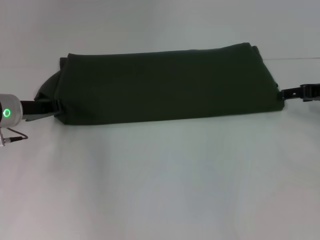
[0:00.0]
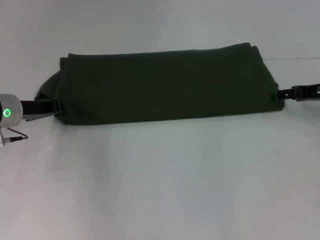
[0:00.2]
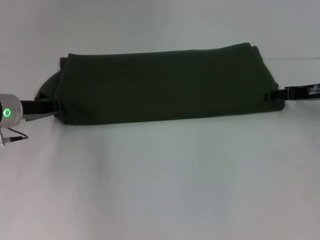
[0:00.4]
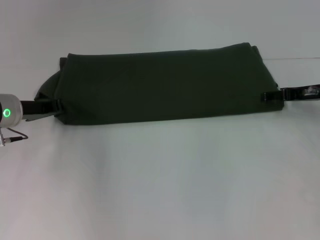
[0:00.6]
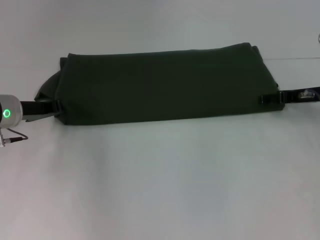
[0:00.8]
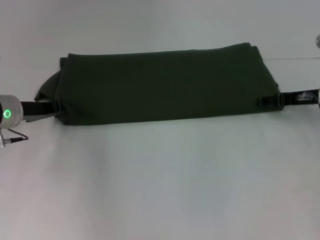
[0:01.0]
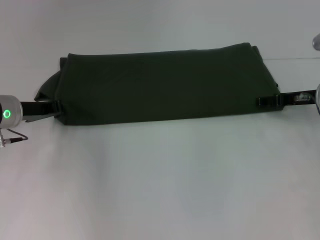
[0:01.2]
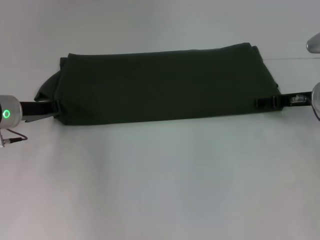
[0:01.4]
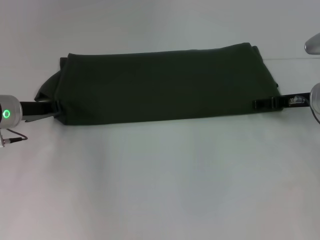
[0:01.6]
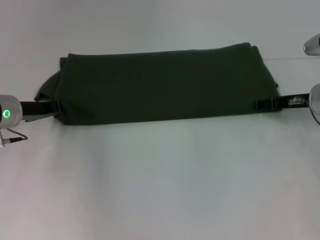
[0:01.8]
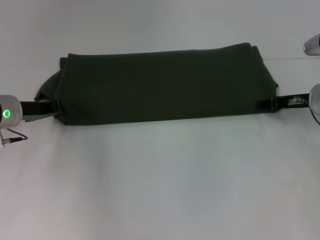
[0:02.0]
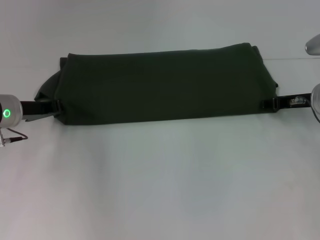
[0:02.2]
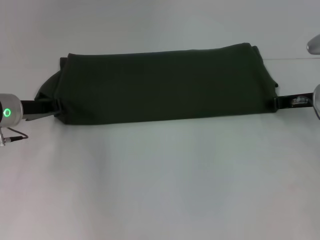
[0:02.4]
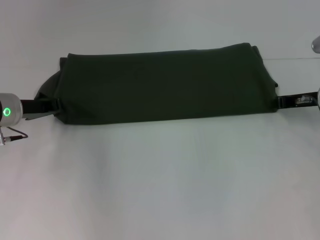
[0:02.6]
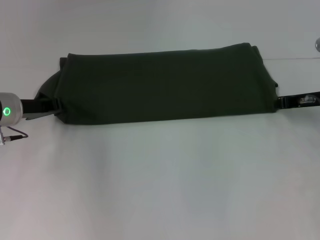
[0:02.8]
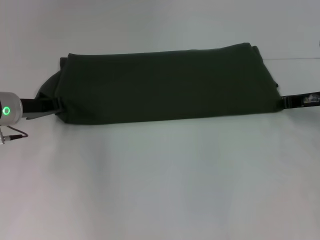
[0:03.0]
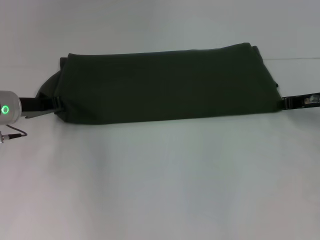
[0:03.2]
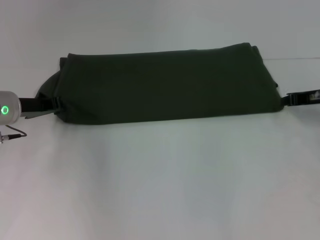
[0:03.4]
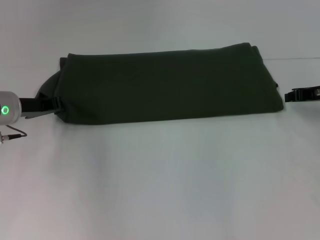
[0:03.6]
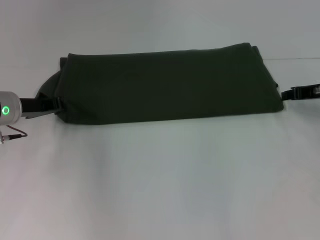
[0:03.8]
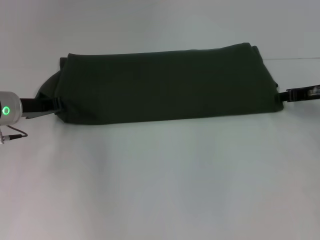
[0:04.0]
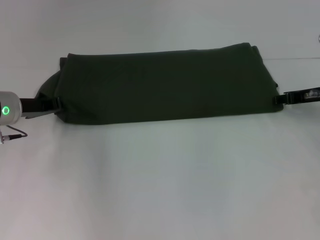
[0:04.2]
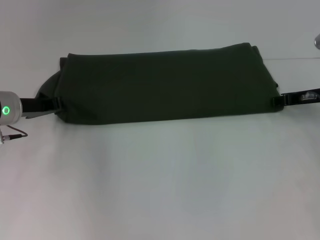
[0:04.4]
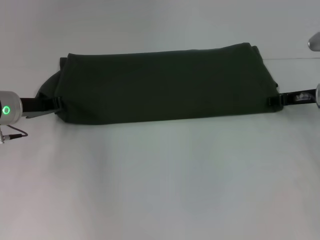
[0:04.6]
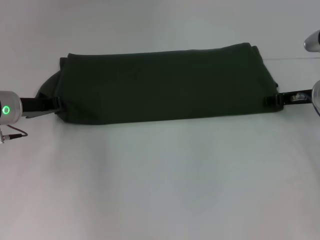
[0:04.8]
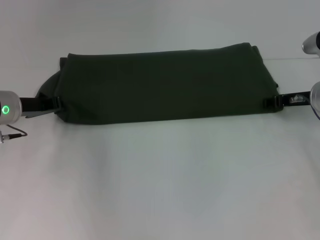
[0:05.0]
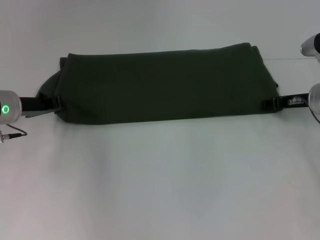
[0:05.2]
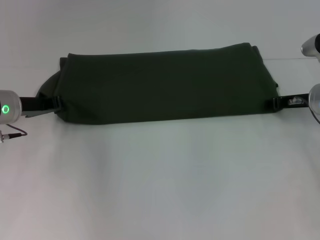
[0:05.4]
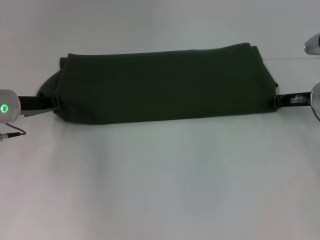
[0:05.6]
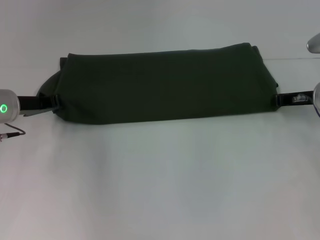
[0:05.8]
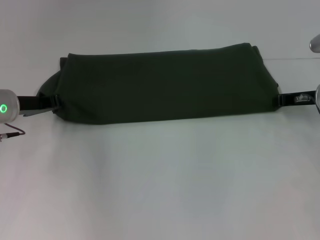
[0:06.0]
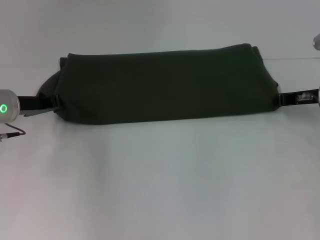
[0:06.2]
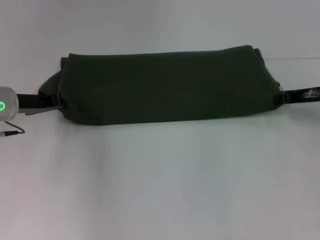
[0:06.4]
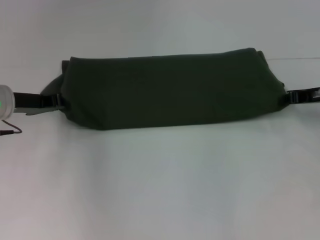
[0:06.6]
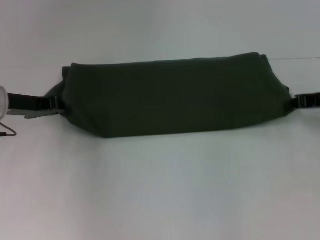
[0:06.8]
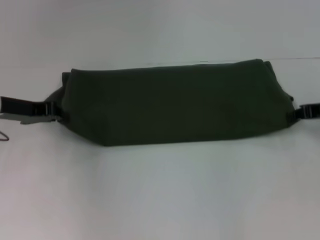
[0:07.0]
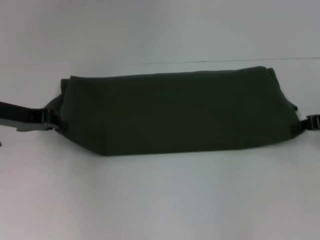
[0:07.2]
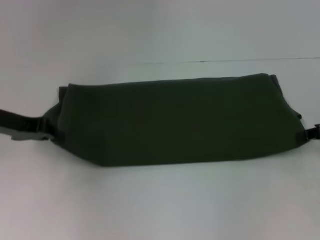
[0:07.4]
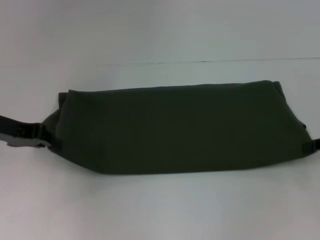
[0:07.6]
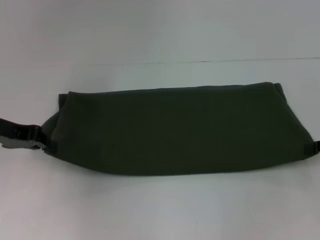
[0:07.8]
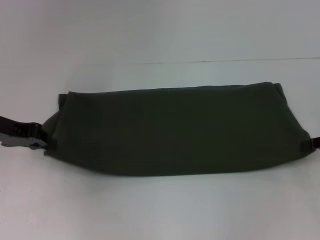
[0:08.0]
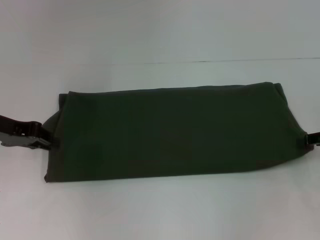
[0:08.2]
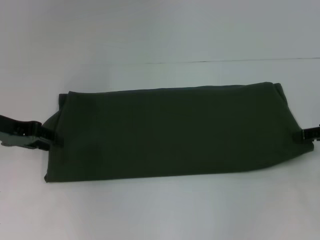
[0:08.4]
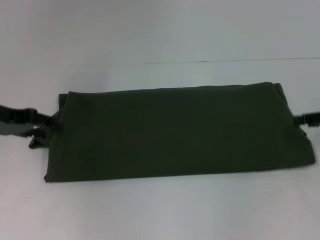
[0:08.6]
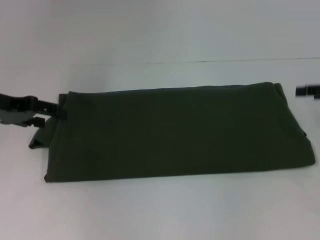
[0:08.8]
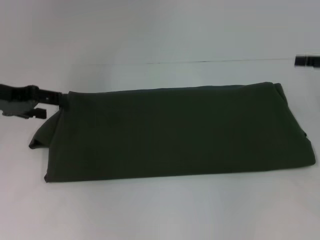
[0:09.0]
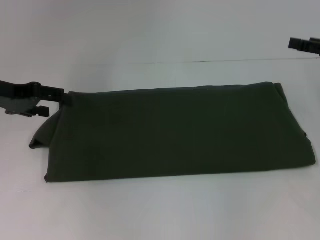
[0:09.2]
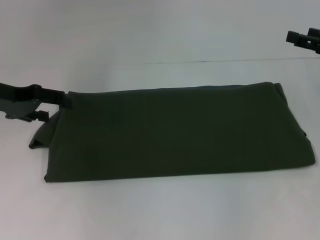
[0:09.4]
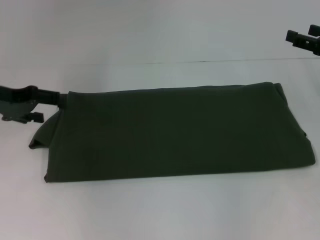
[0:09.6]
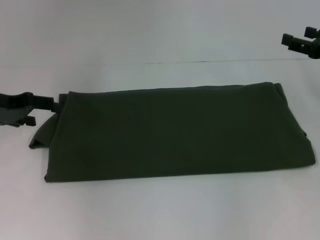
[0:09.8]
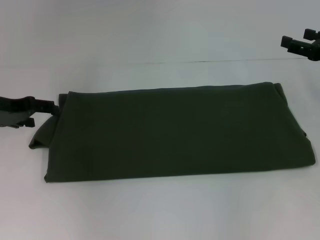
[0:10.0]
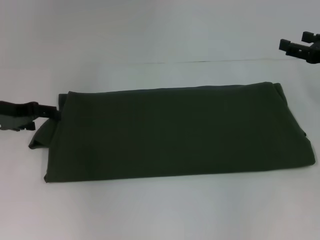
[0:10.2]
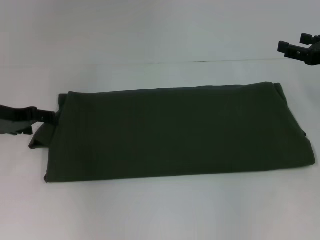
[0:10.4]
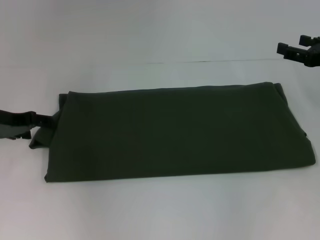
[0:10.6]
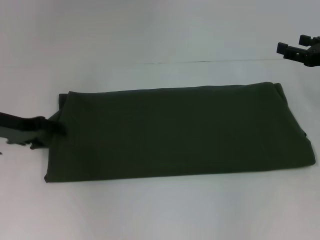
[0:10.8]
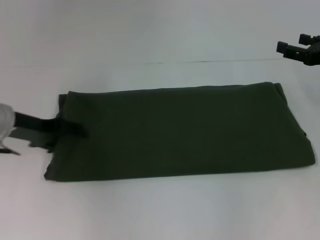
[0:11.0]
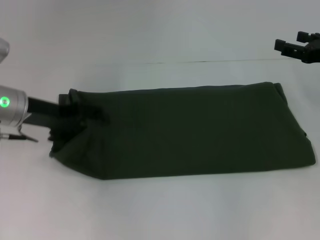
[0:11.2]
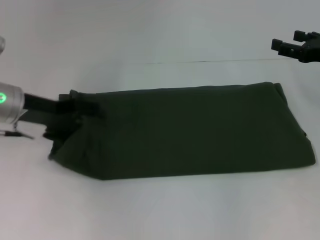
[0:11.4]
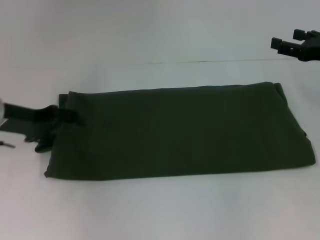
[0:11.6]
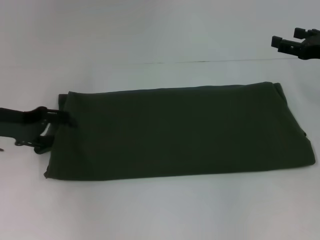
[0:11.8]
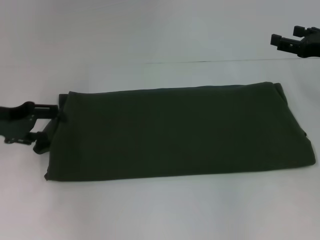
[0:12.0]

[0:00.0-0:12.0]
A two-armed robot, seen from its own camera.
Step, 0:00.0 to 0:08.4: Pull the clothes with your left hand.
Step, 0:00.0 to 0:08.4: Pull the clothes with your right hand.
0:00.0 to 0:01.6: The right gripper goes about 5 cm to the left.
0:01.6 to 0:03.0: The right gripper closes its fingers.
0:06.0 to 0:07.6: The left gripper shifts roughly 5 cm upward; the right gripper heads backward and to the right, covering roughly 10 cm.
0:07.6 to 0:09.0: The left gripper opens. The right gripper travels upward and forward by about 10 cm, and opens.
0:09.0 to 0:10.4: The left gripper moves downward, some 5 cm.

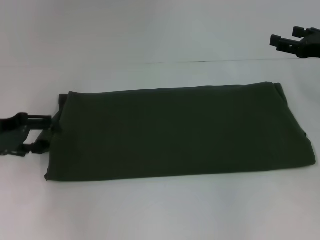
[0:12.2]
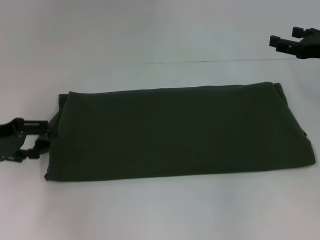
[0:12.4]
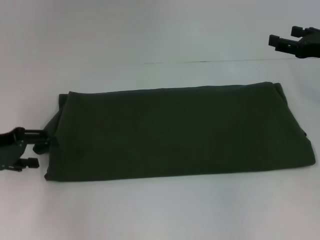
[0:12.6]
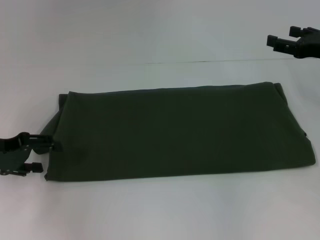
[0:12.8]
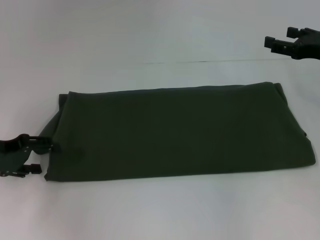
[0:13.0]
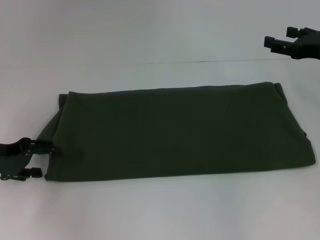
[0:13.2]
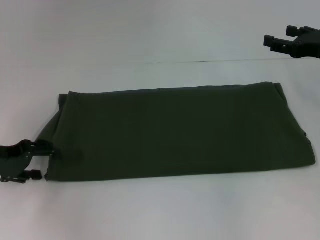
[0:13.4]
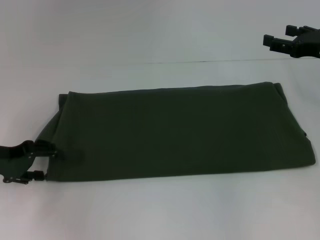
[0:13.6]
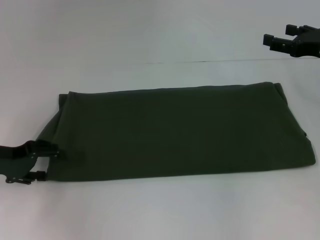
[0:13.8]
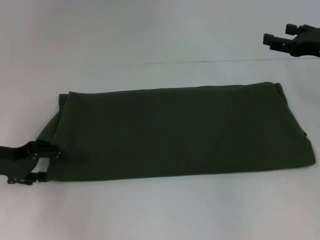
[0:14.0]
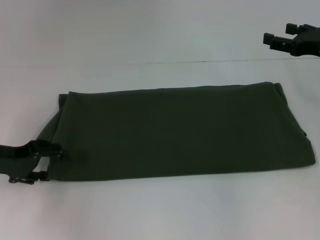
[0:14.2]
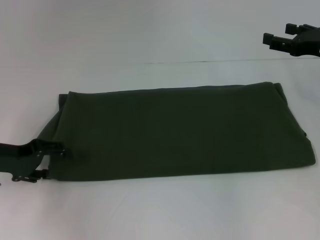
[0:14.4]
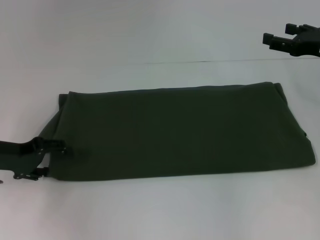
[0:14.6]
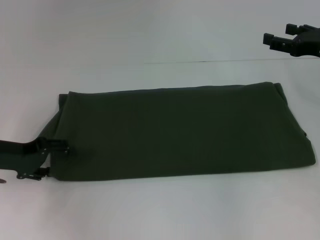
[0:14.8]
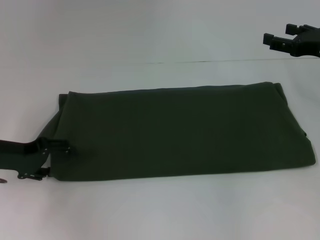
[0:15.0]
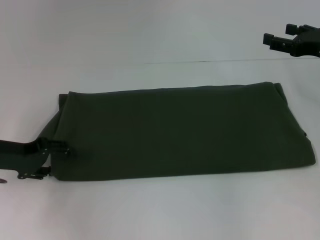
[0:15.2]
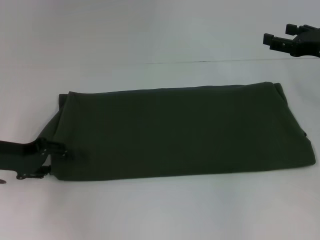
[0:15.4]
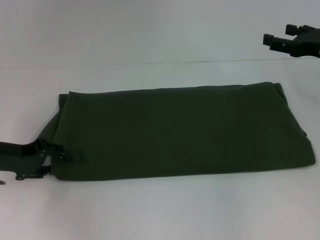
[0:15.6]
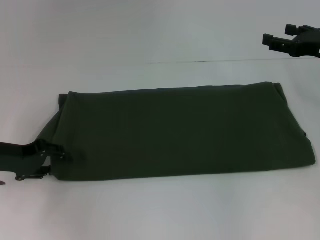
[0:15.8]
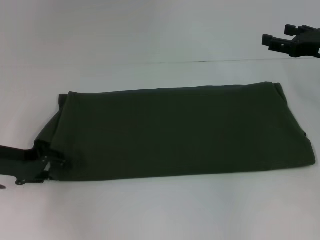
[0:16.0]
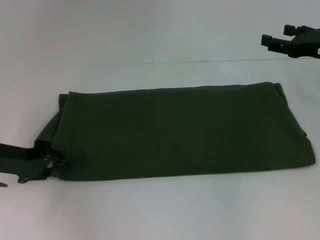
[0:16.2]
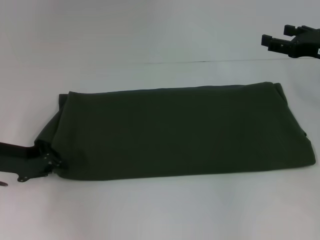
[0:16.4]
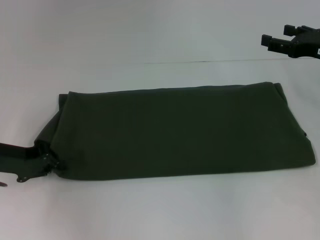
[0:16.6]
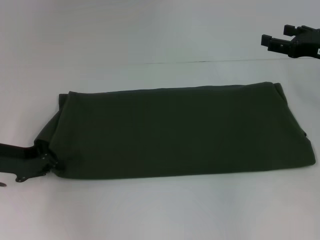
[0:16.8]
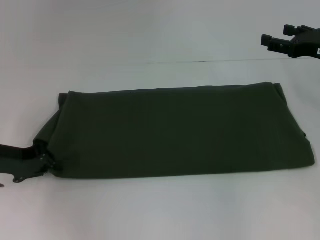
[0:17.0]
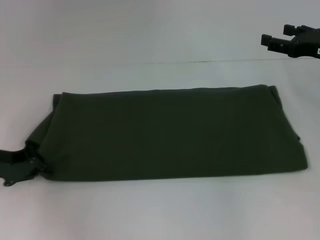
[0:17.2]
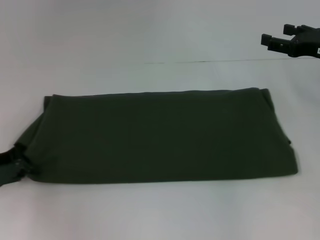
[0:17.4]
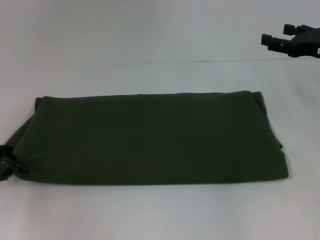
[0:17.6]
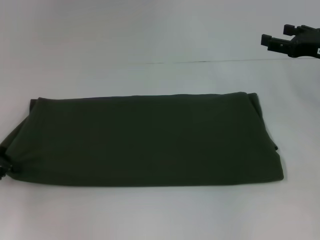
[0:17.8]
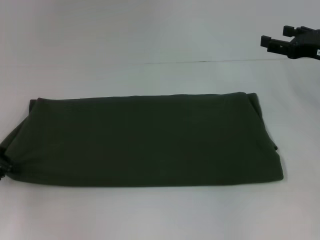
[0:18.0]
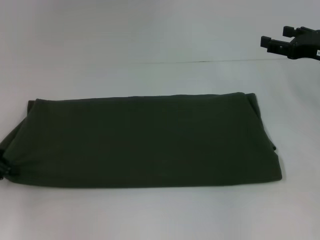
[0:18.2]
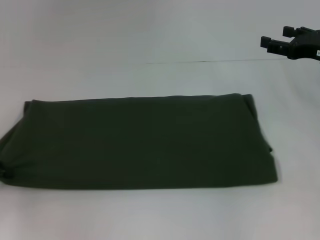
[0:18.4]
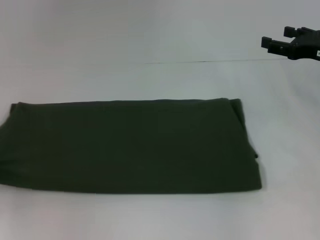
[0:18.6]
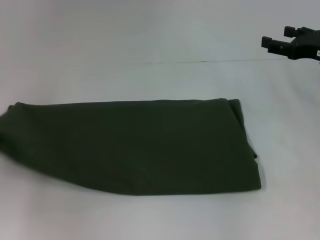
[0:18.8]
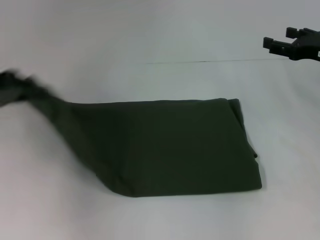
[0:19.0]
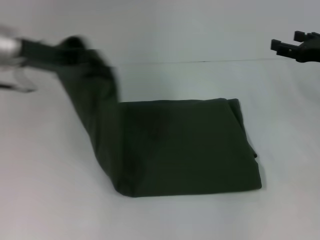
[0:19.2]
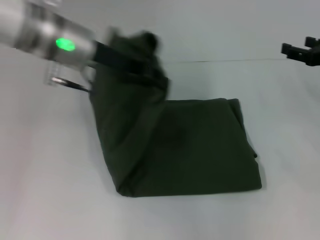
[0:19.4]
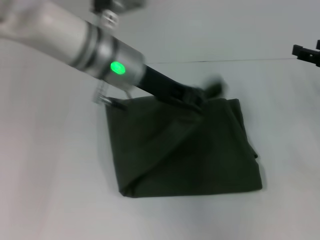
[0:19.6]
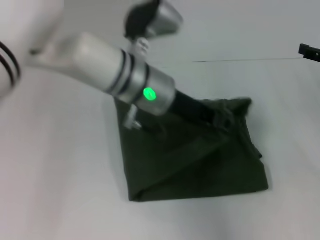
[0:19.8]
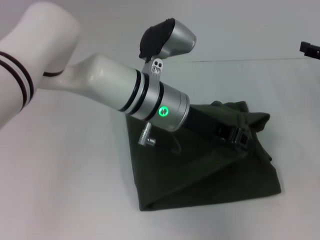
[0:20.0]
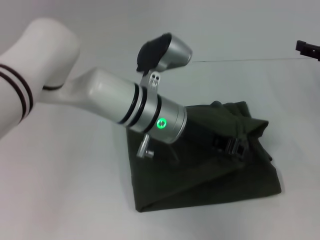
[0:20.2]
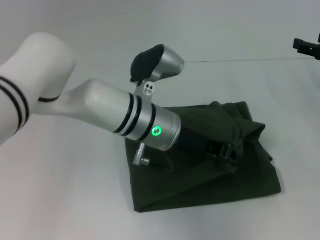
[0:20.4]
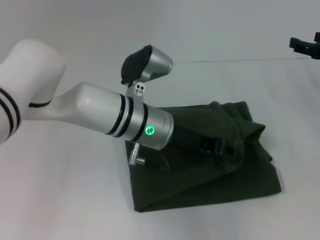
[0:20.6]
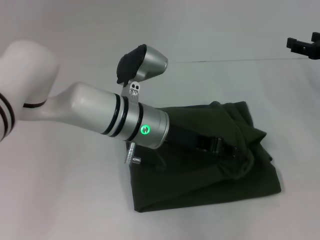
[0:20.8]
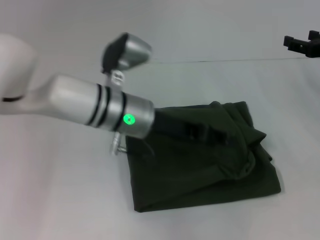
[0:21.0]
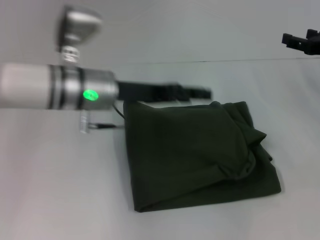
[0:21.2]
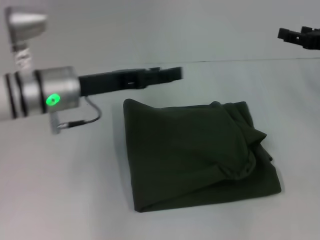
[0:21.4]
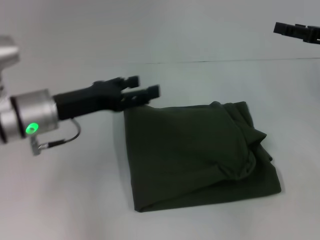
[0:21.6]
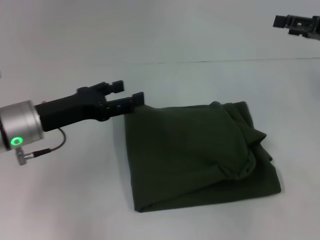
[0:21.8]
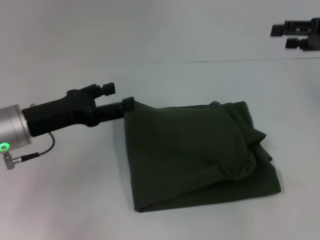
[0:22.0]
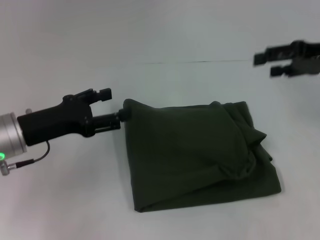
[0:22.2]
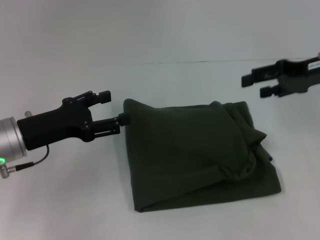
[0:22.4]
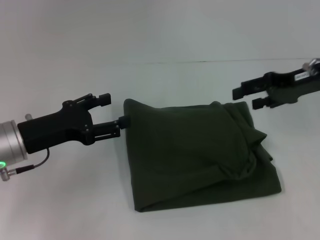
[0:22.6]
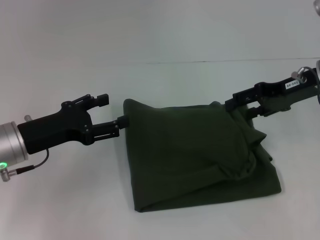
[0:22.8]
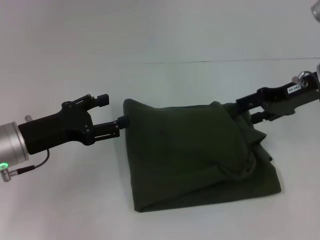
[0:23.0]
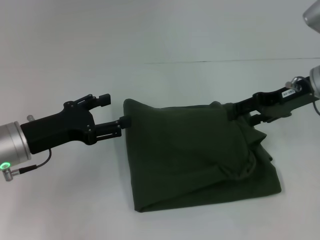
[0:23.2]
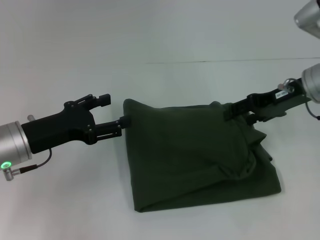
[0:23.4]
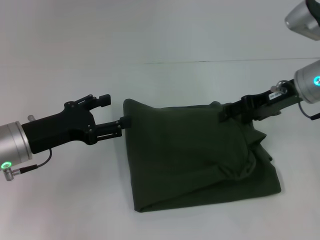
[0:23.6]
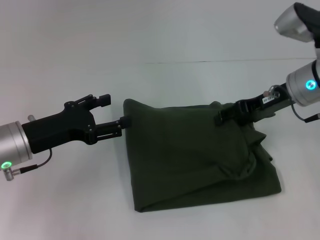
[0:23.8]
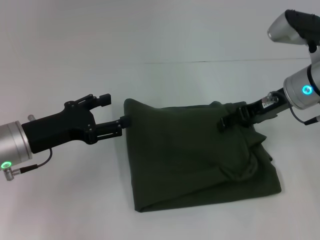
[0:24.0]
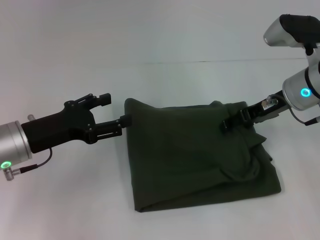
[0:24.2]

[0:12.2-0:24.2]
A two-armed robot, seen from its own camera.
Step, 0:12.2 to 0:21.0: Fold the clothes with your left hand.
0:12.2 to 0:15.2: The grippers stay close to where they were, moving slightly.
0:15.2 to 0:16.6: The left gripper closes up.
0:16.6 to 0:18.2: The left gripper moves to the left, some 5 cm.
0:18.2 to 0:19.8: The left gripper moves to the right, approximately 35 cm. Meanwhile the right gripper changes place by approximately 5 cm.
0:19.8 to 0:21.2: The left gripper travels to the left by some 10 cm, and opens its fingers.
0:21.2 to 0:22.6: The left gripper shifts some 15 cm to the left, backward and downward, and opens its fingers, while the right gripper goes some 5 cm to the left.
0:22.6 to 0:24.2: The right gripper moves to the left, approximately 5 cm.
